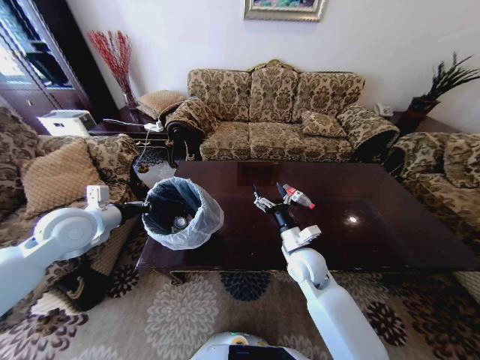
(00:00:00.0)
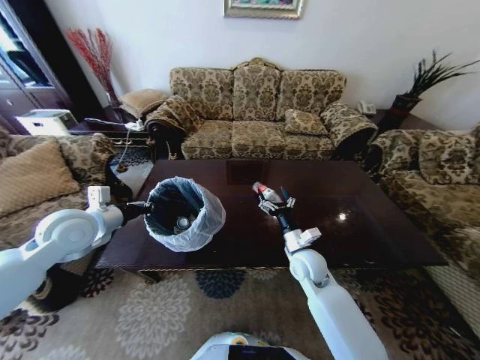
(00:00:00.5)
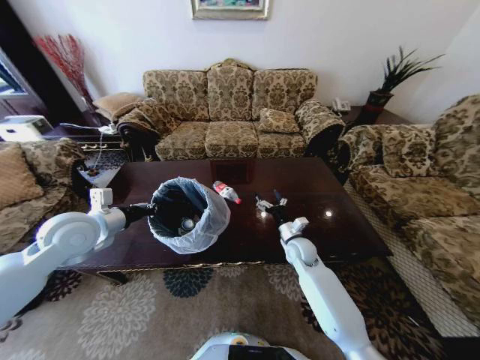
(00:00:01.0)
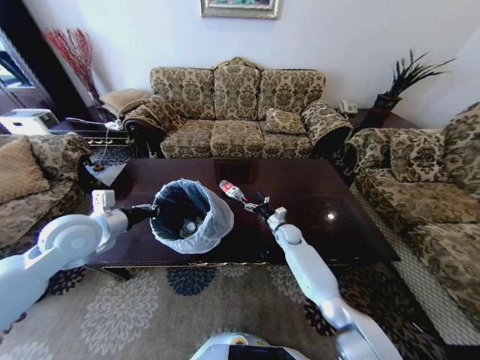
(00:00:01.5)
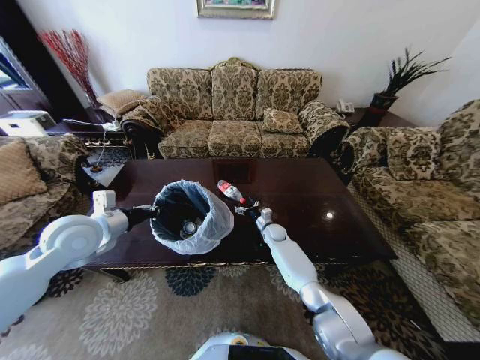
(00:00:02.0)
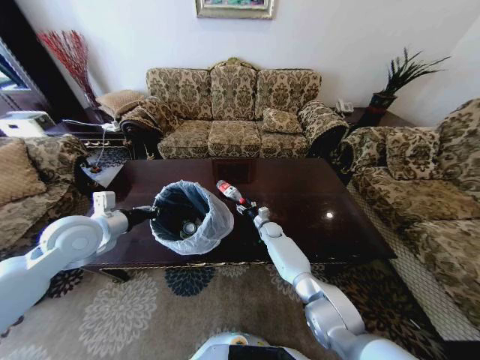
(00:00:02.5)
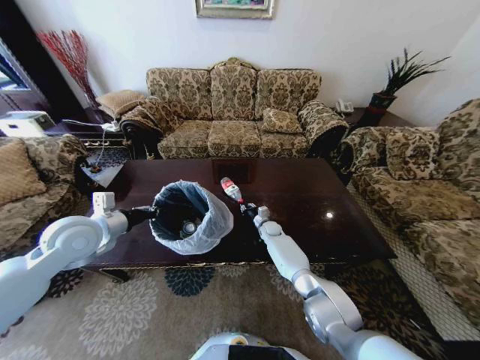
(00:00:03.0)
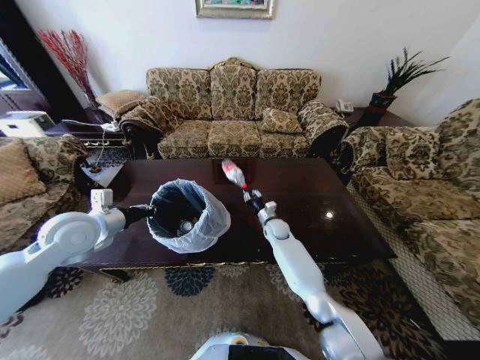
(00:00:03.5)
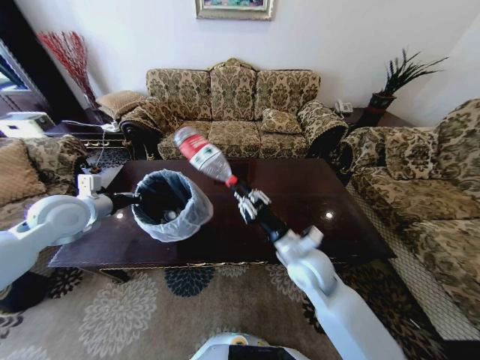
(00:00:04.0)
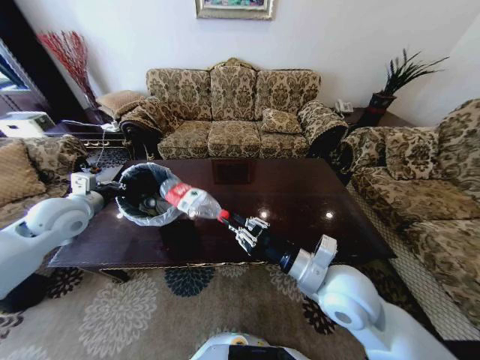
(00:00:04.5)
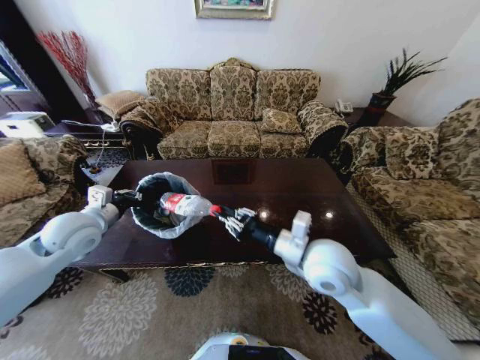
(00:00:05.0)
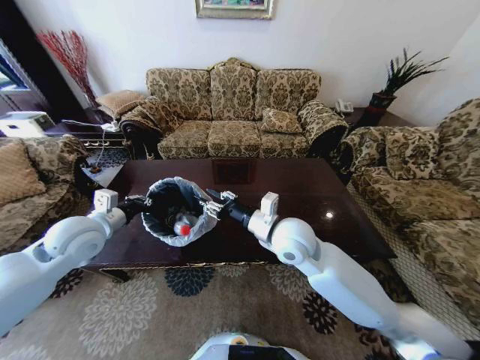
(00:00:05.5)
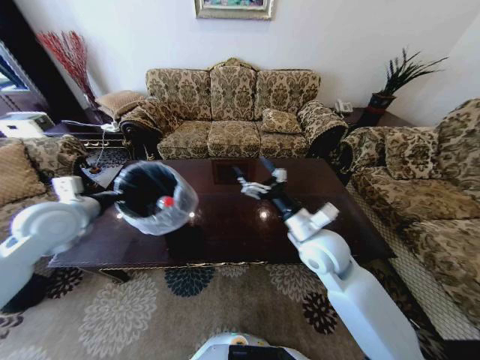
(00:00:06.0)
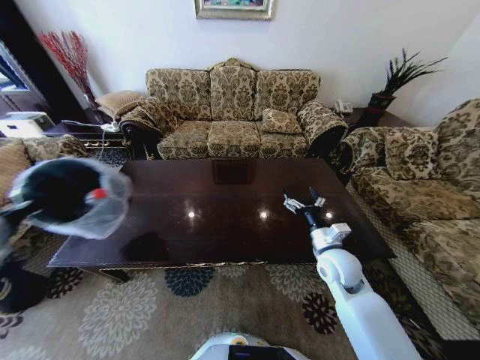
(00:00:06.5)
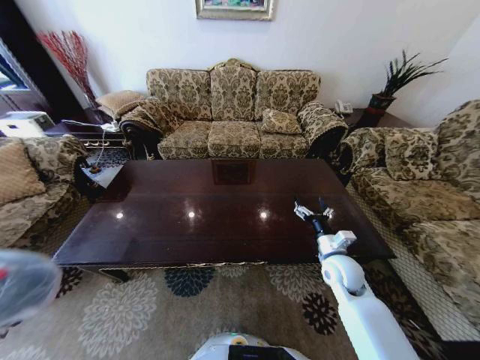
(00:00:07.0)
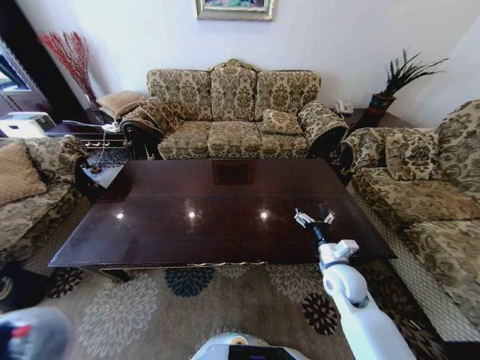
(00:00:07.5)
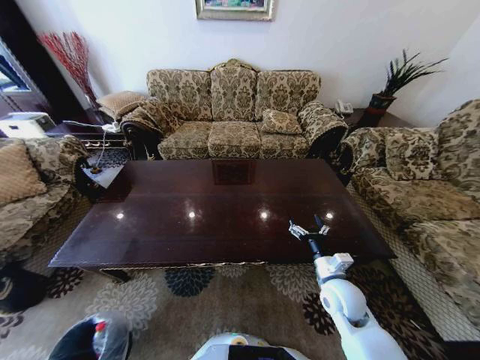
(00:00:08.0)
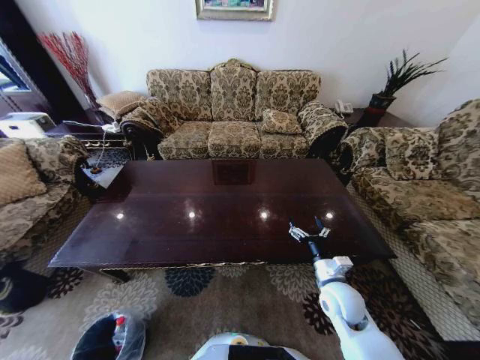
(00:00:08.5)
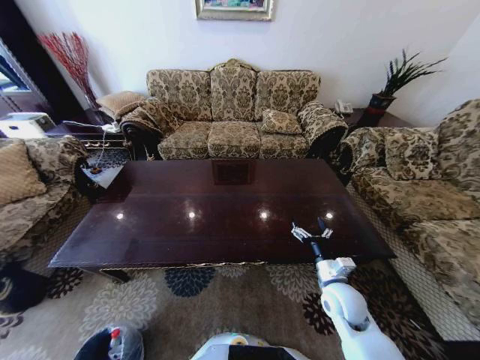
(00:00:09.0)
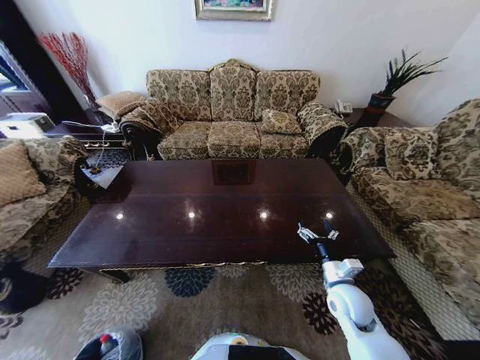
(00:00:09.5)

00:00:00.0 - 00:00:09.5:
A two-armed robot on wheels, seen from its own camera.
Task of the whole recording: Move to the front of the table and place the trash on the table into the trash bin.
00:00:00.0 - 00:00:02.0: The right gripper heads forward and downward, covering approximately 25 cm.
00:00:02.0 - 00:00:04.0: The right gripper travels backward and upward by about 30 cm, and closes its fingers. The left gripper moves approximately 5 cm.
00:00:04.0 - 00:00:05.5: The right gripper moves upward and to the left, some 10 cm, and moves about 5 cm backward and comes back. The left gripper changes place by roughly 5 cm.
00:00:05.5 - 00:00:07.5: The right gripper moves to the right and downward, approximately 25 cm, and opens up. Meanwhile the left gripper is displaced backward, downward and to the left by approximately 50 cm.
00:00:07.5 - 00:00:09.5: The left gripper is displaced downward and to the right by approximately 25 cm, and opens.

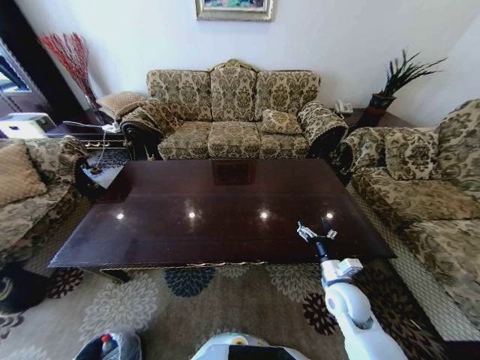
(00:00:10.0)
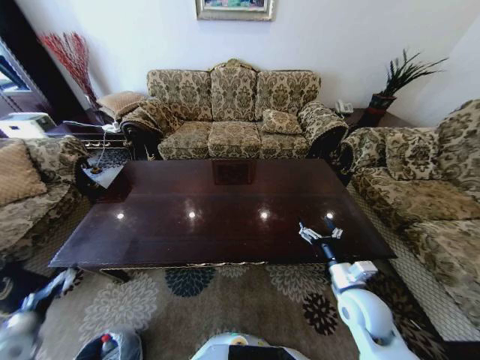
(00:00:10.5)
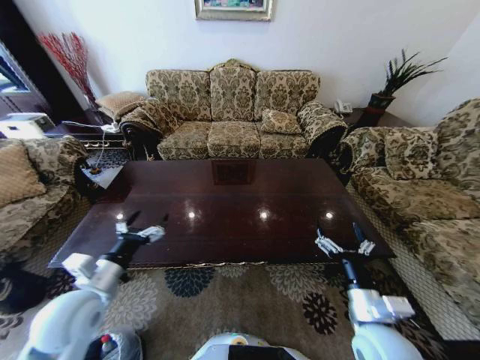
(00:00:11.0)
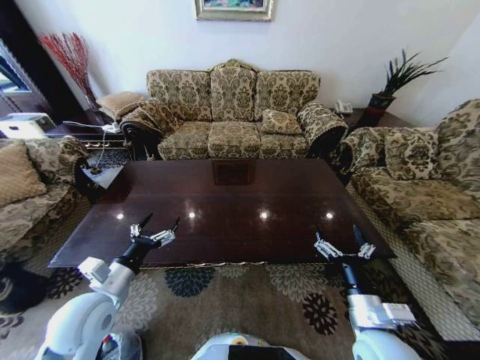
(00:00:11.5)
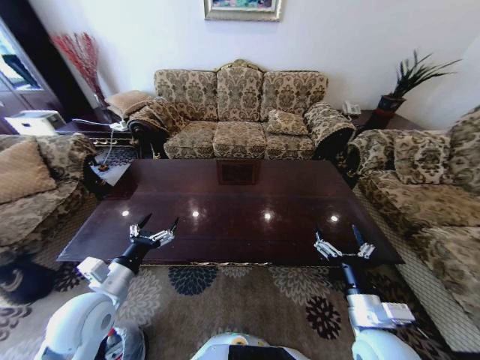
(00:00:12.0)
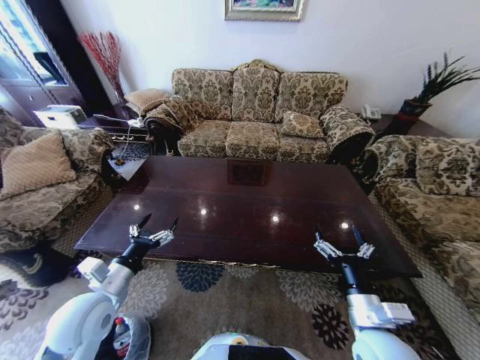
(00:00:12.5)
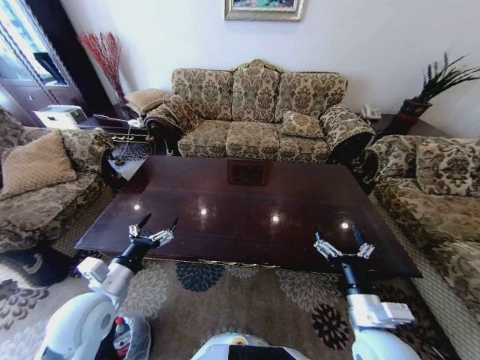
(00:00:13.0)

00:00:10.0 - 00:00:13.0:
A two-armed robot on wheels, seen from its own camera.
Task of the whole recording: Move to the front of the table and place the trash on the table into the trash bin.
00:00:10.0 - 00:00:11.5: The left gripper travels upward, forward and to the right by about 50 cm; the right gripper travels backward and upward by roughly 15 cm.
